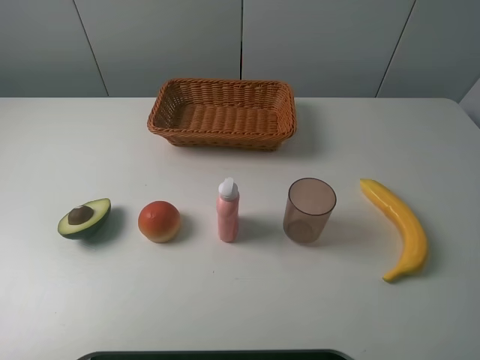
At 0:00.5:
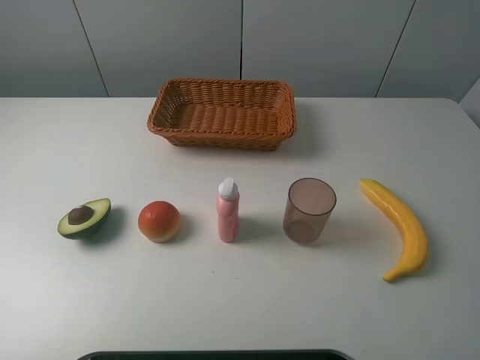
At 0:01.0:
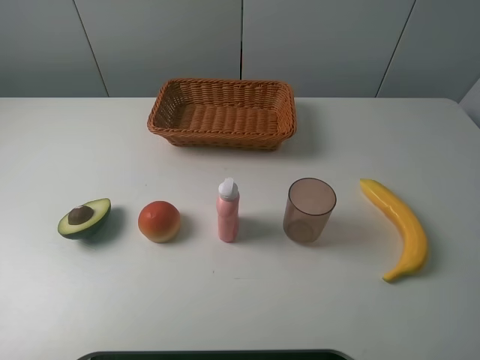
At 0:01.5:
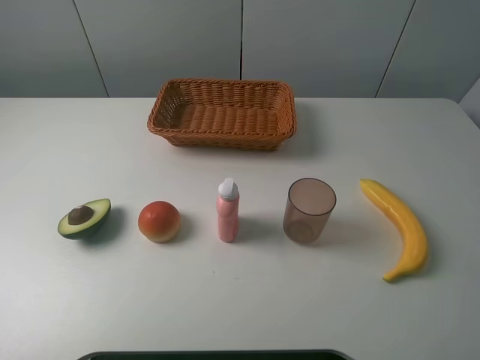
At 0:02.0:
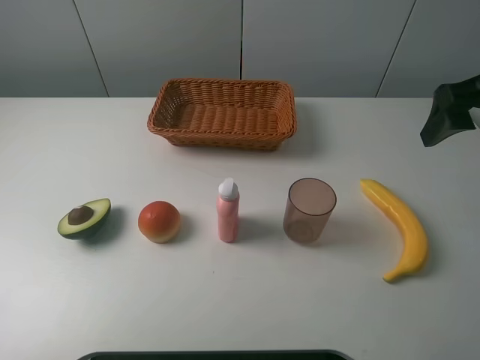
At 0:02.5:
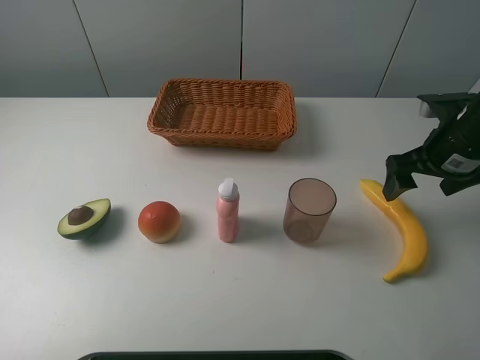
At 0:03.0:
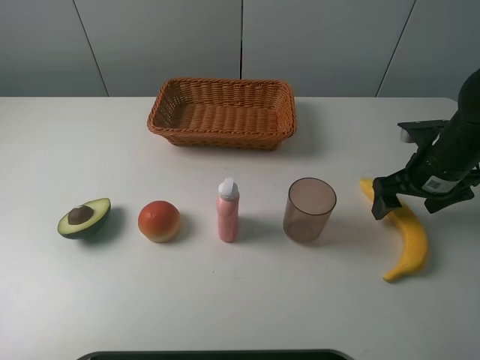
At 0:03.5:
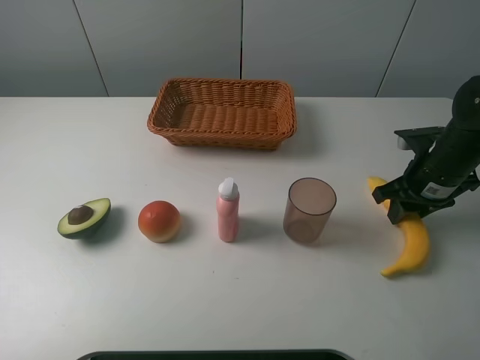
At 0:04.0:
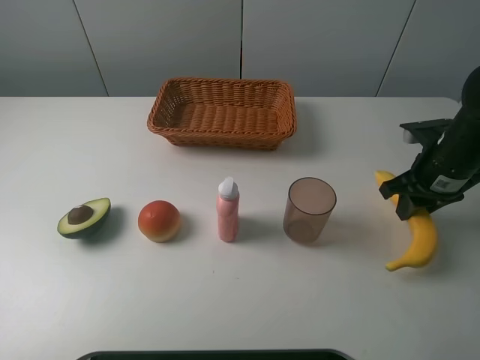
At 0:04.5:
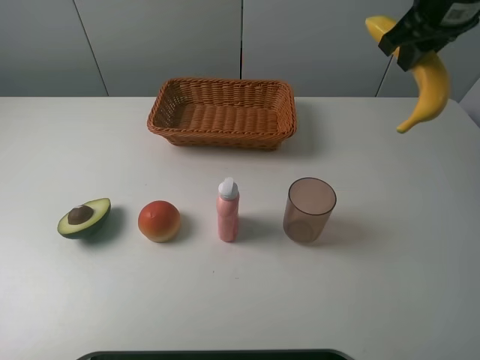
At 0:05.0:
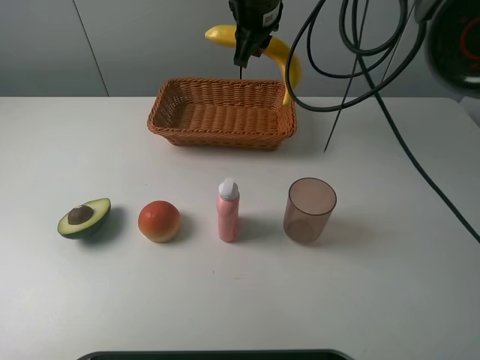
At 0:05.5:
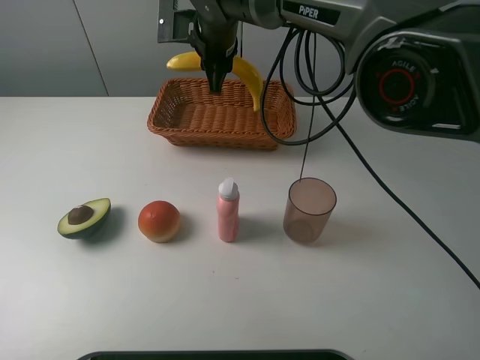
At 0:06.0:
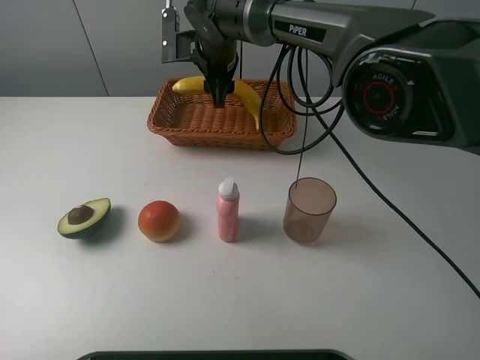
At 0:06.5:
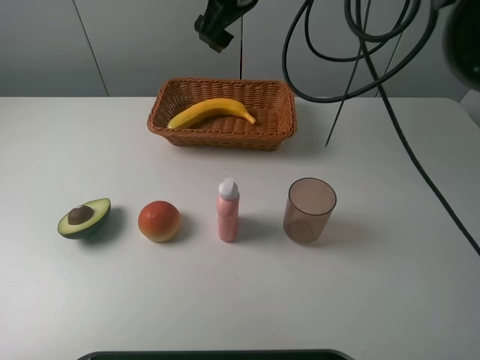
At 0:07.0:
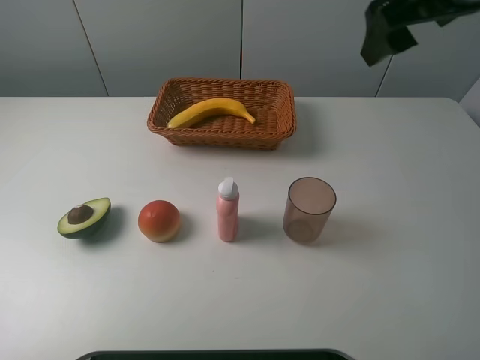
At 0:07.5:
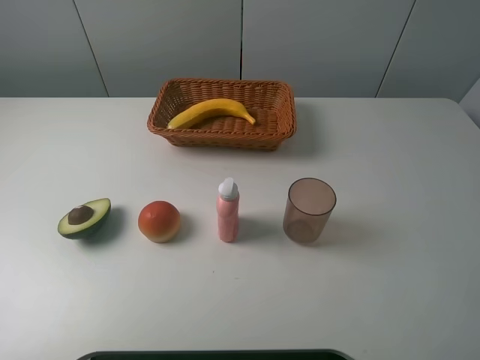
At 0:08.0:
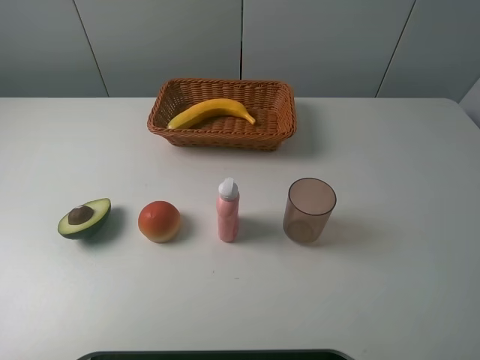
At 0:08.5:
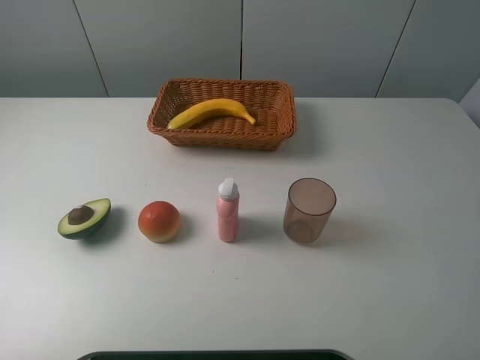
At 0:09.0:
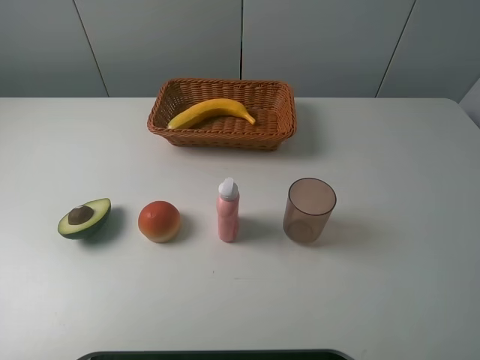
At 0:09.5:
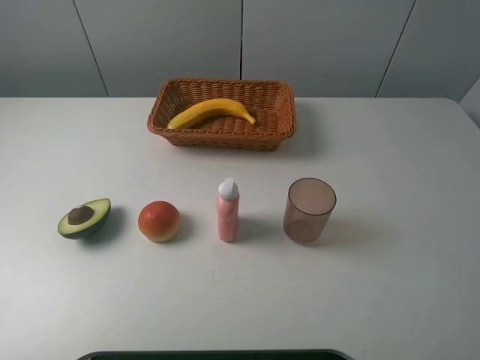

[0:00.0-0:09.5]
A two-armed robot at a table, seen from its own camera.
Task of the whole recording: randomly pick up an item from the table and put it in the basket.
Step, 0:00.0 to 0:03.5: Grasp the banana with the right gripper.
Step, 0:04.0 to 0:06.0: Place the banana into the basket with the right gripper.
0:00.0 to 0:02.0: The right gripper travels forward by approximately 25 cm.
0:02.0 to 0:04.0: The right gripper travels downward by about 15 cm, and closes up.
0:04.0 to 0:05.5: The right gripper shifts some 35 cm to the left and forward.
0:05.5 to 0:07.5: The right gripper travels backward and to the right by roughly 50 cm, and opens up.

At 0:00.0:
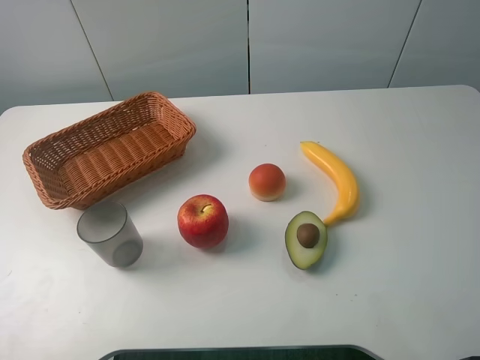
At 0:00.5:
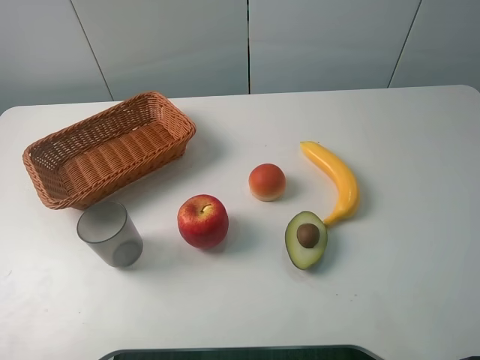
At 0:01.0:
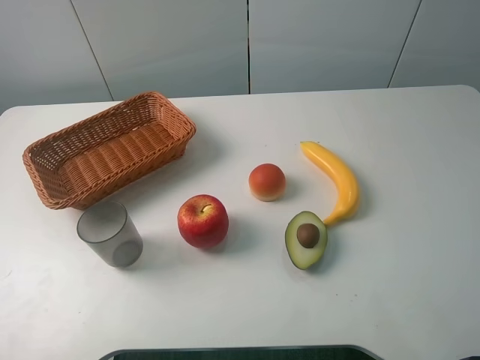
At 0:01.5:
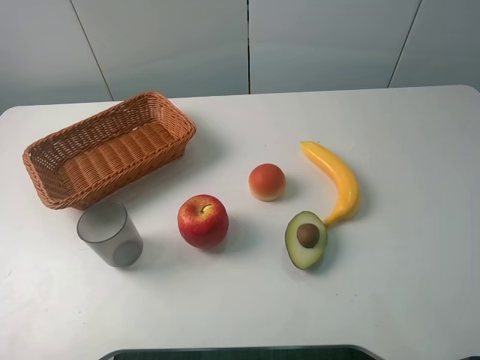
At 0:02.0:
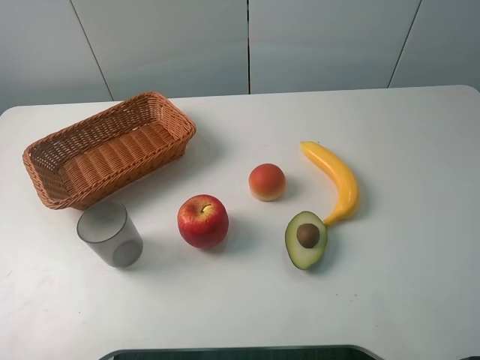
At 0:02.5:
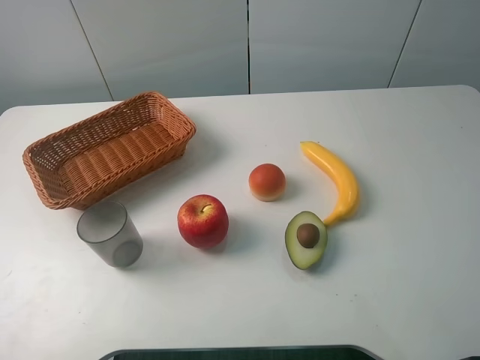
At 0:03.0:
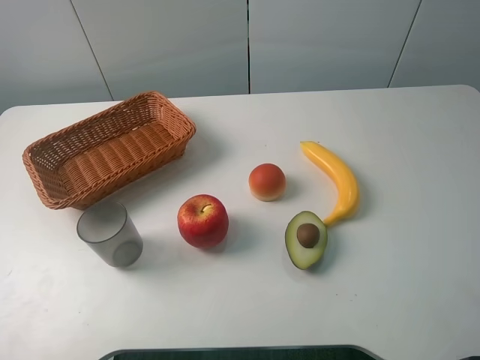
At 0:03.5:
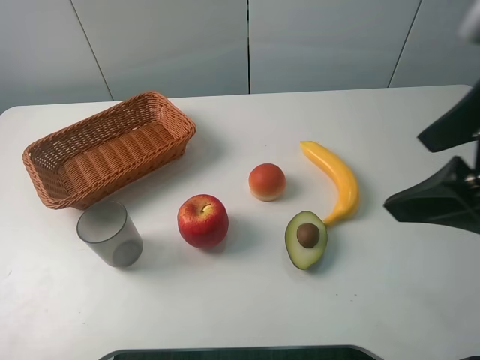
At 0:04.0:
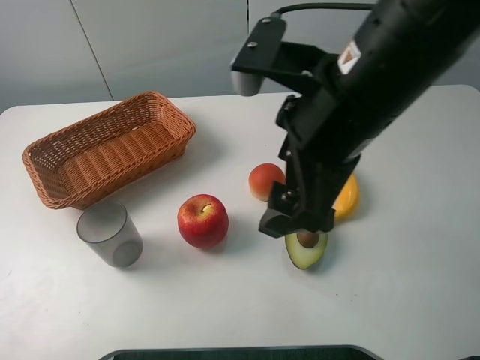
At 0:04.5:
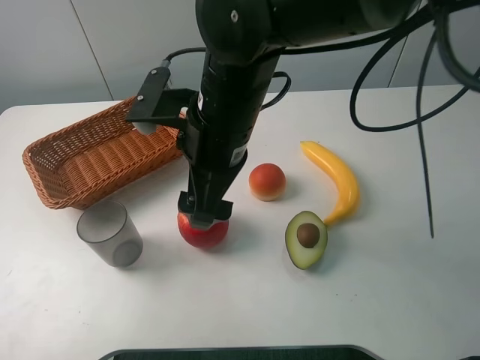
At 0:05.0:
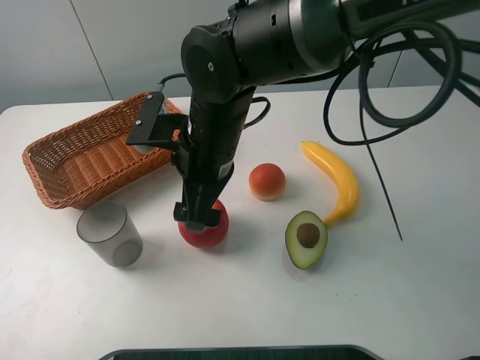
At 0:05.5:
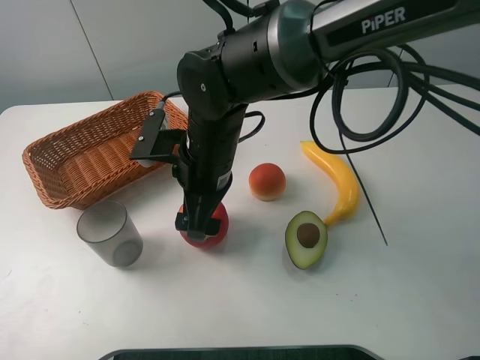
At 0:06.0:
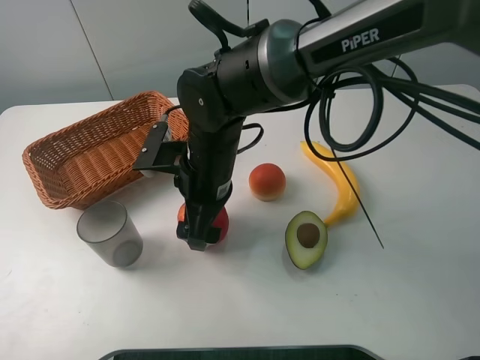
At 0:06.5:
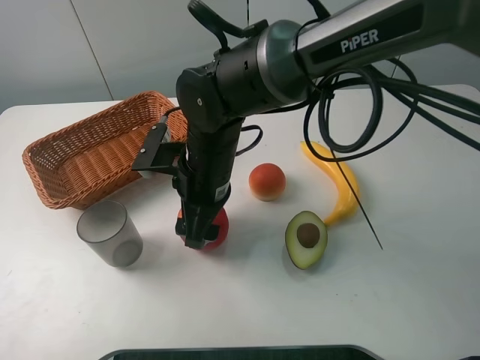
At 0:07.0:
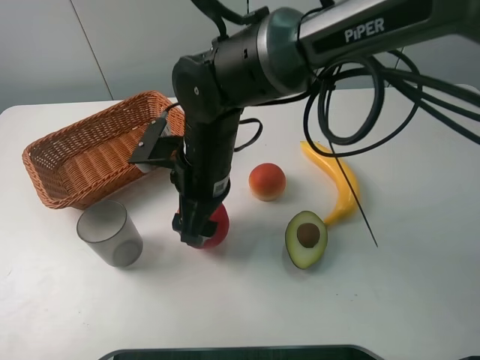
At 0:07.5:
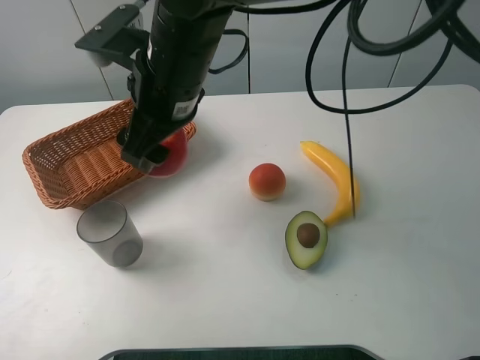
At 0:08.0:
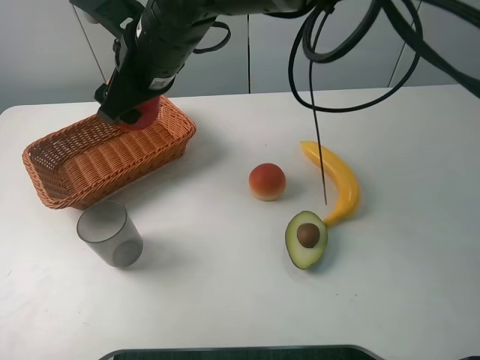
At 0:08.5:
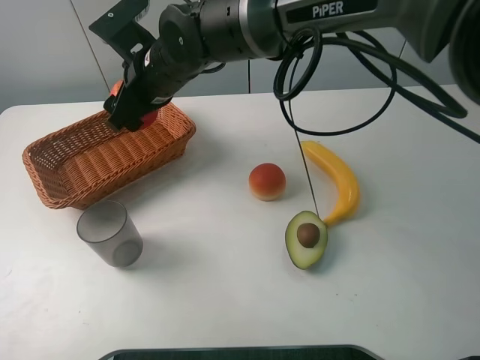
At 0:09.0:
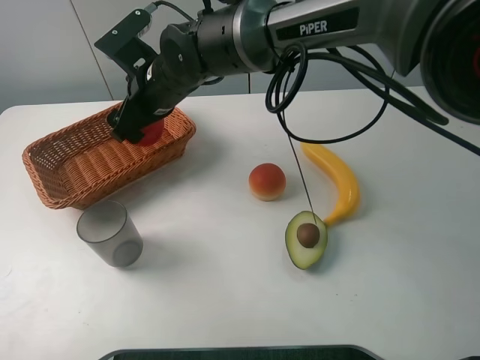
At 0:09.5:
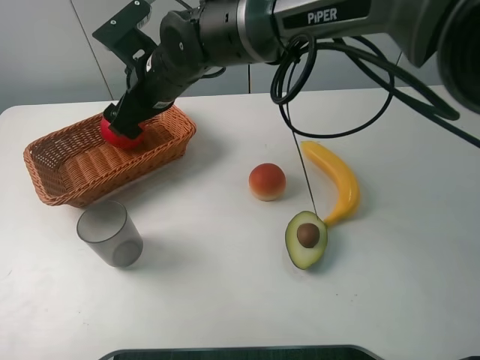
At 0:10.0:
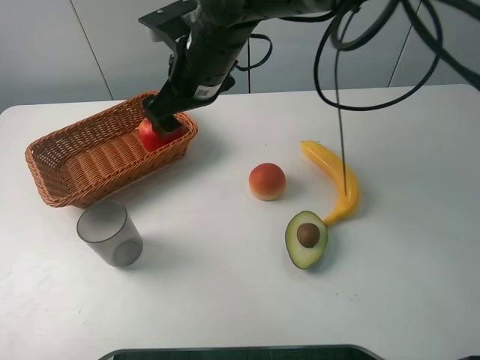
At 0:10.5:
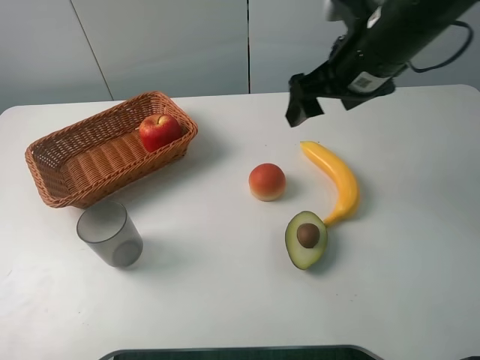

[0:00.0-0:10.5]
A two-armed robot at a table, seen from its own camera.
Task of the whole recording: randomly pick up an item from the table and put it in the basket.
Step, 0:00.0 to 0:06.0: Grasp the apple with the right gripper.
Step, 0:06.5 to 0:10.0: Place the apple into the basket with the right gripper.
0:00.0 to 0:02.0: Both grippers stay put.
0:02.0 to 0:04.0: The right gripper goes approximately 30 cm to the left and forward.
0:04.0 to 0:06.5: The right gripper shifts some 20 cm downward, to the left and forward, and closes its fingers.
0:06.5 to 0:08.5: The right gripper heads forward, upward and to the left, covering some 10 cm.
0:08.5 to 0:10.5: The right gripper moves to the right, about 25 cm, and opens.

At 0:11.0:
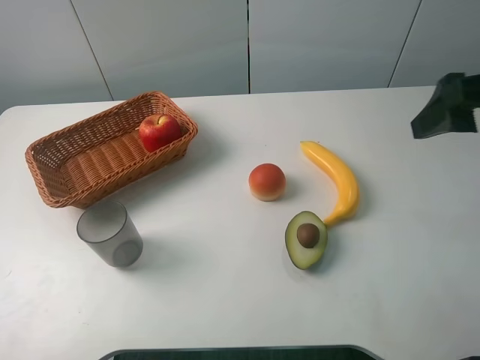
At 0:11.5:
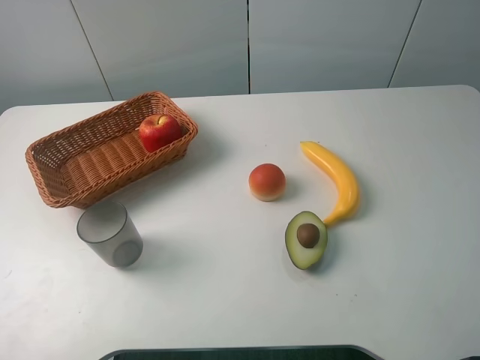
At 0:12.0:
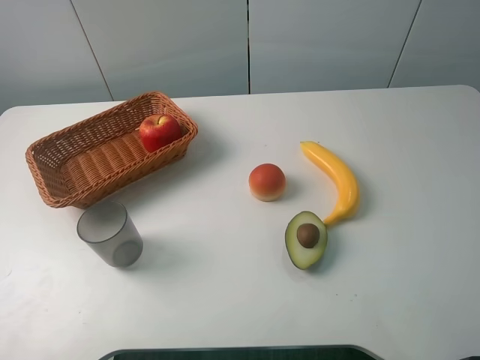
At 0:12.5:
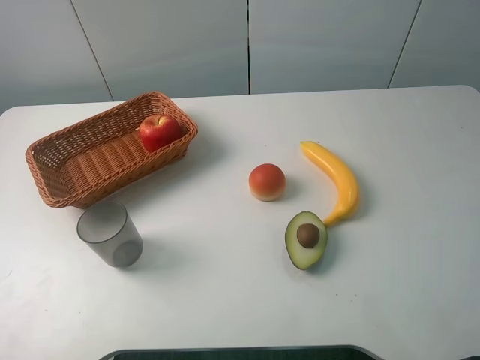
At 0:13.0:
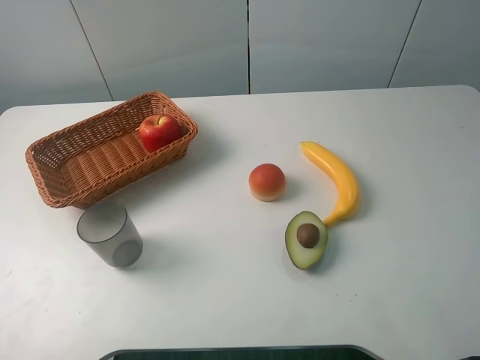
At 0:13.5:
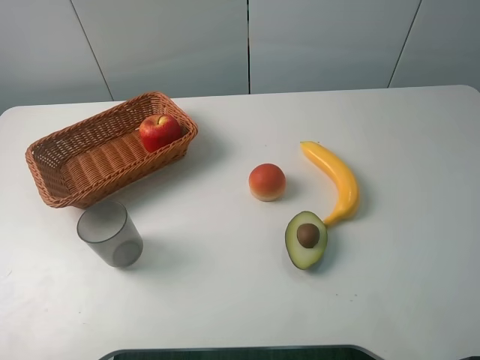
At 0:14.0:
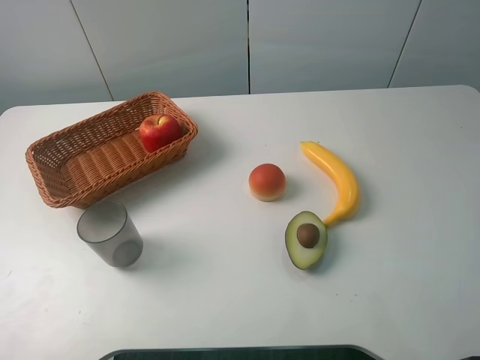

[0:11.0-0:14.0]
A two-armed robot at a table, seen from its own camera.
Task of the whole recording: randomly pick up an item from the table and put it in the basket.
0:11.0 to 0:12.5: The right gripper goes some 20 cm backward.
0:12.5 to 0:14.0: Both grippers stay put.

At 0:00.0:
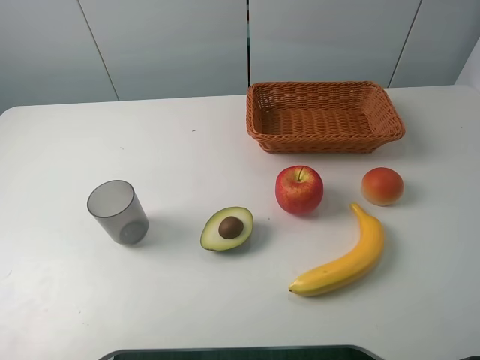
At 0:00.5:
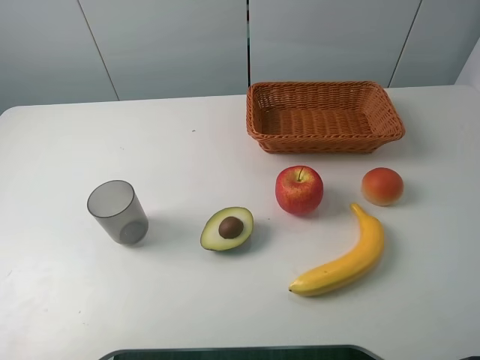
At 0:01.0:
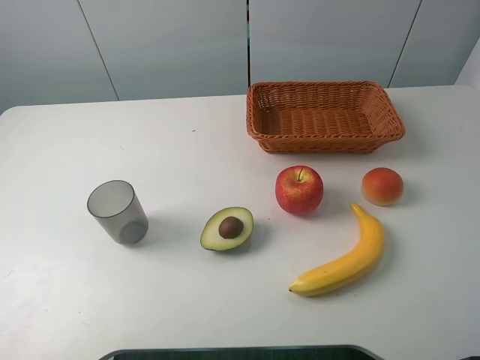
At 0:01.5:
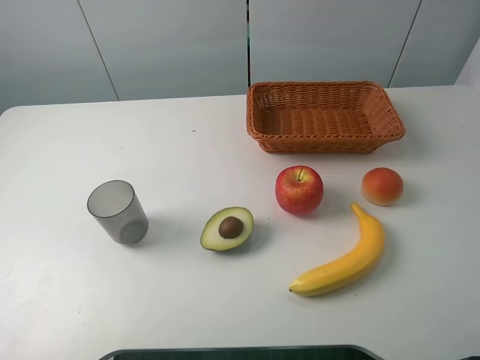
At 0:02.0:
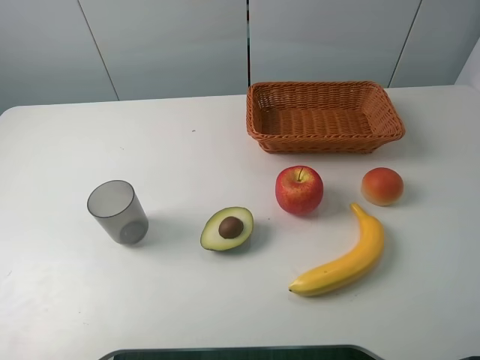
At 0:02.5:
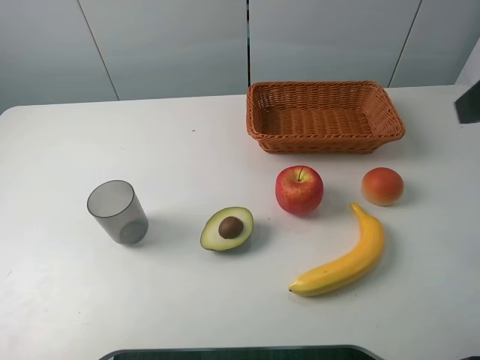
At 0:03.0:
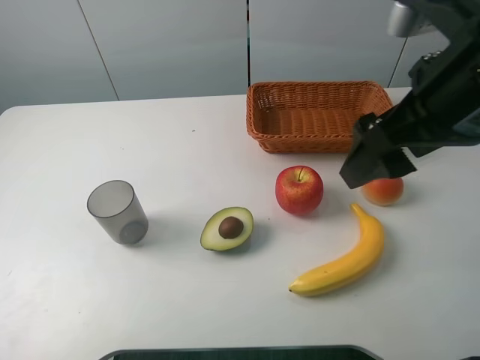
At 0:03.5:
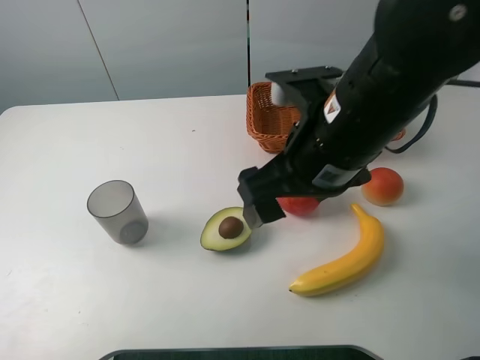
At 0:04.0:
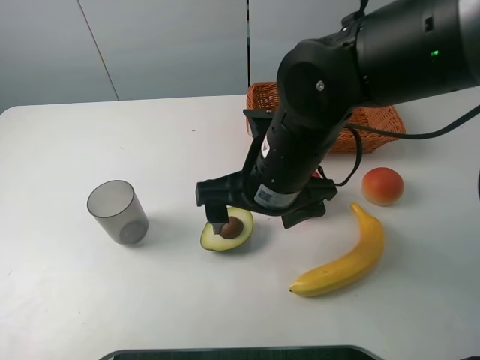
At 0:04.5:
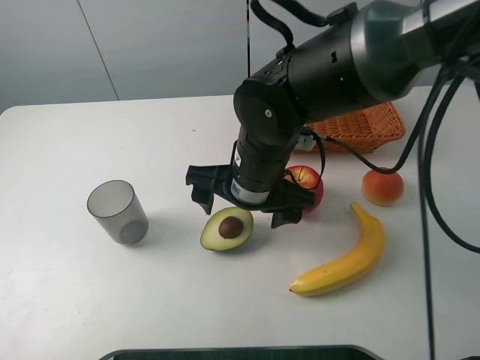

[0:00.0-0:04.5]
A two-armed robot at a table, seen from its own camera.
Task of the whole recording: randomly pick up an item from the table and put it in the basket.
0:02.0 to 0:04.5: The right gripper heads to the left, forward and downward, covering some 40 cm.
